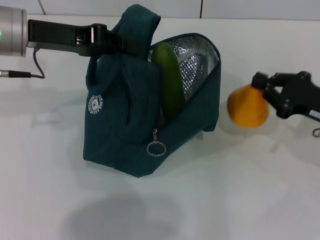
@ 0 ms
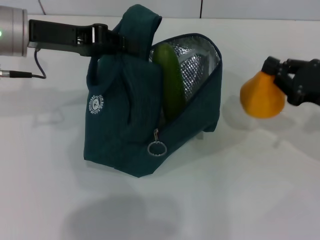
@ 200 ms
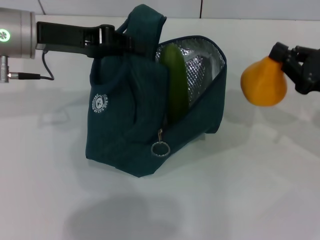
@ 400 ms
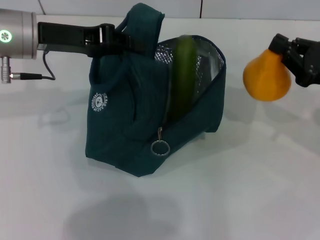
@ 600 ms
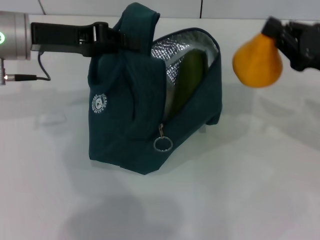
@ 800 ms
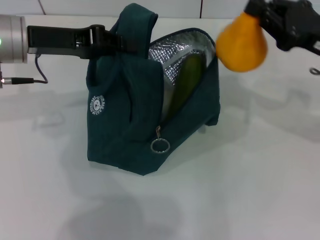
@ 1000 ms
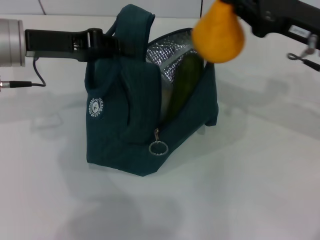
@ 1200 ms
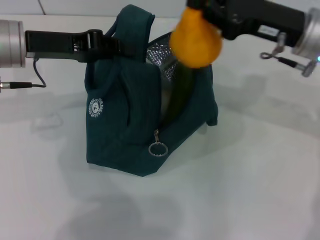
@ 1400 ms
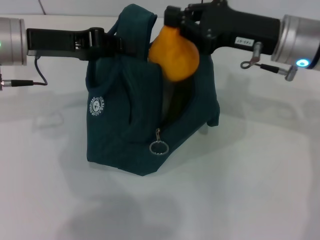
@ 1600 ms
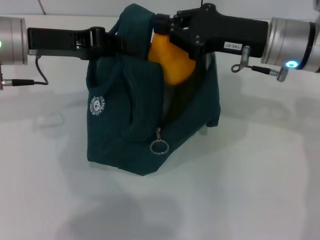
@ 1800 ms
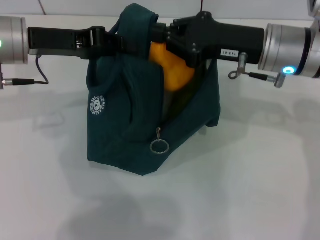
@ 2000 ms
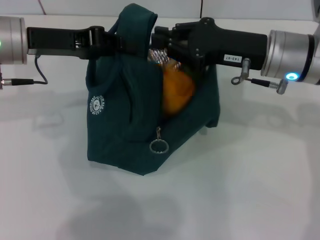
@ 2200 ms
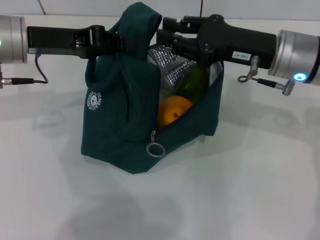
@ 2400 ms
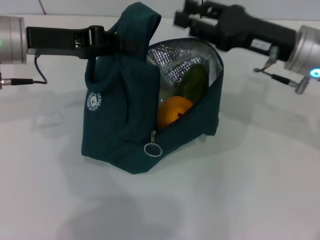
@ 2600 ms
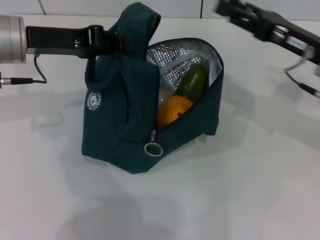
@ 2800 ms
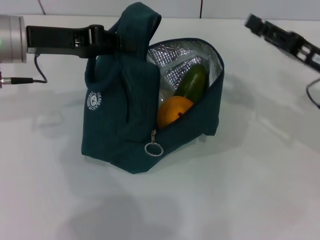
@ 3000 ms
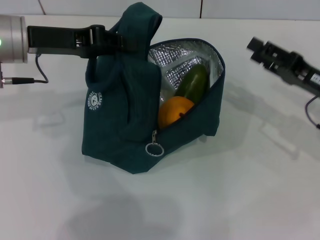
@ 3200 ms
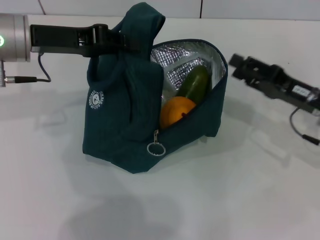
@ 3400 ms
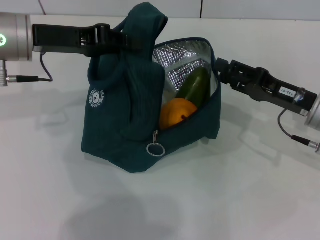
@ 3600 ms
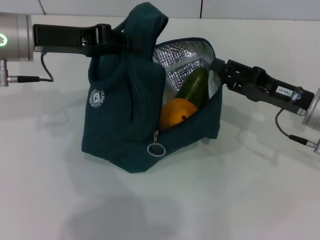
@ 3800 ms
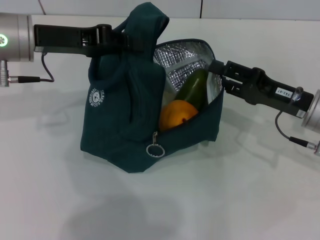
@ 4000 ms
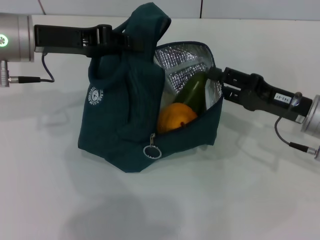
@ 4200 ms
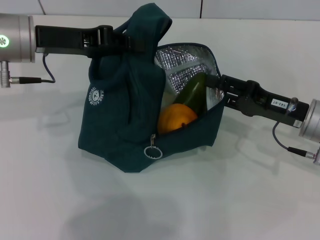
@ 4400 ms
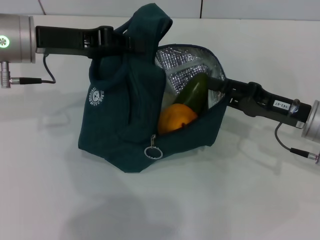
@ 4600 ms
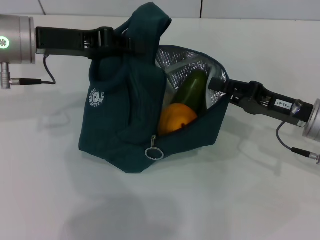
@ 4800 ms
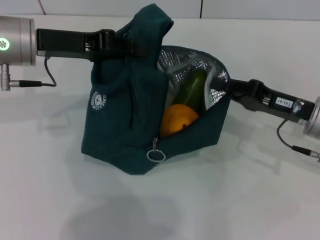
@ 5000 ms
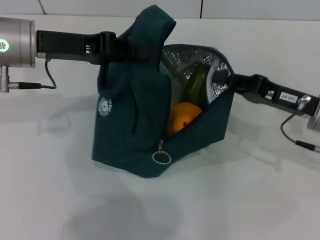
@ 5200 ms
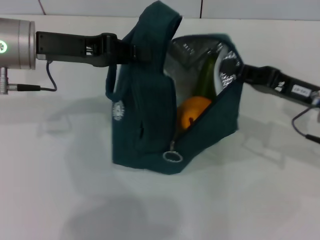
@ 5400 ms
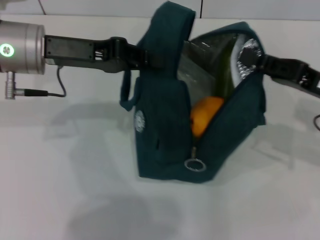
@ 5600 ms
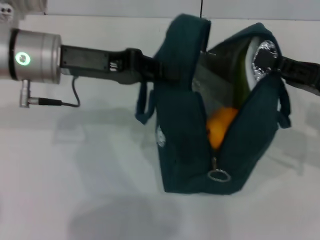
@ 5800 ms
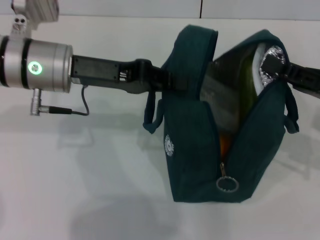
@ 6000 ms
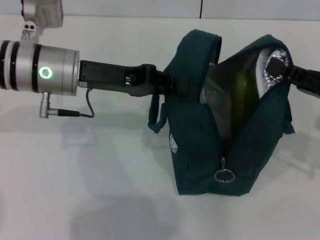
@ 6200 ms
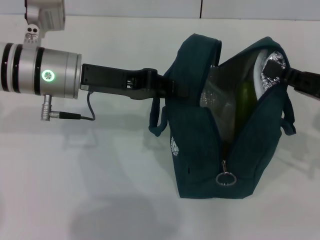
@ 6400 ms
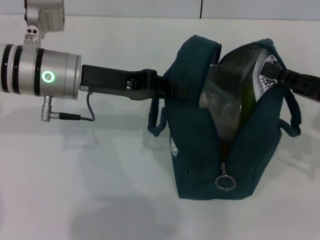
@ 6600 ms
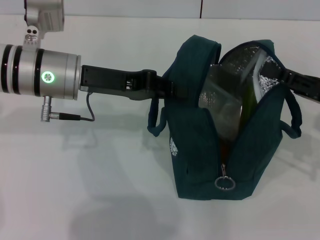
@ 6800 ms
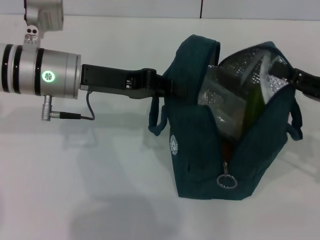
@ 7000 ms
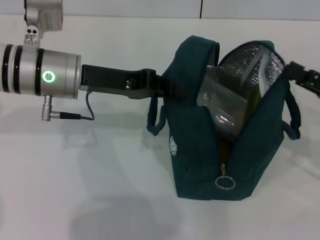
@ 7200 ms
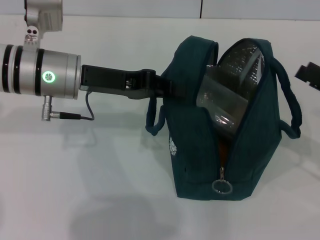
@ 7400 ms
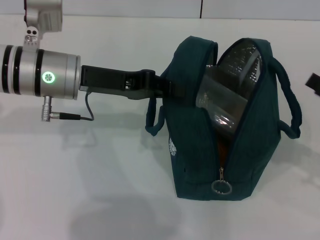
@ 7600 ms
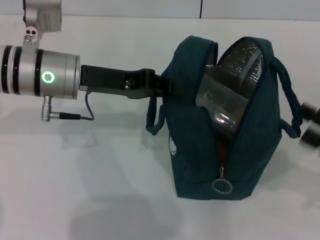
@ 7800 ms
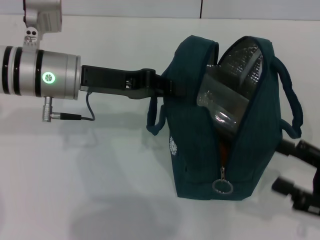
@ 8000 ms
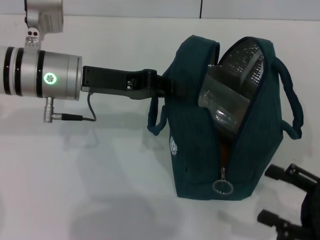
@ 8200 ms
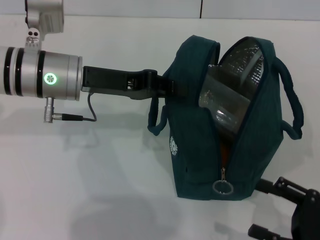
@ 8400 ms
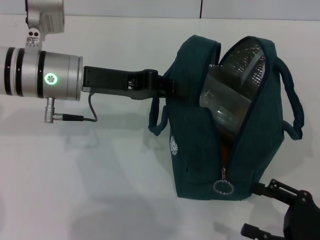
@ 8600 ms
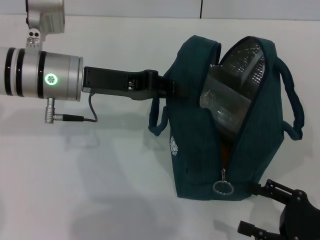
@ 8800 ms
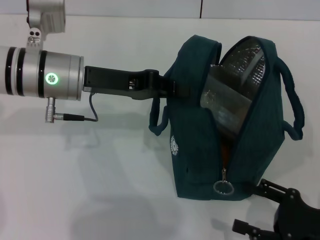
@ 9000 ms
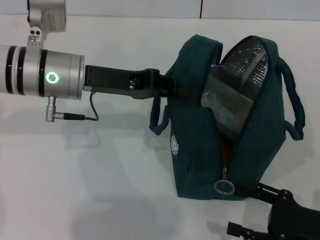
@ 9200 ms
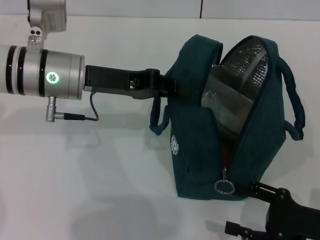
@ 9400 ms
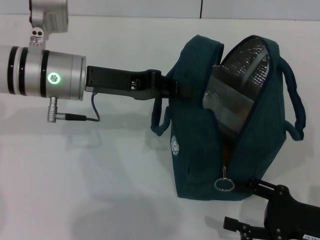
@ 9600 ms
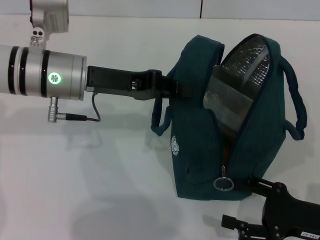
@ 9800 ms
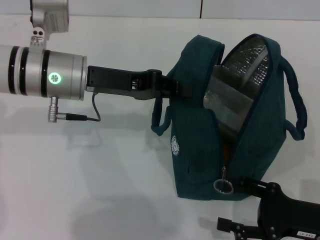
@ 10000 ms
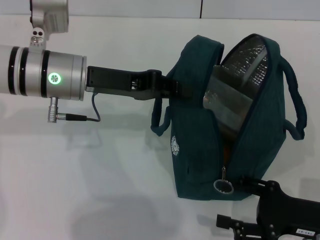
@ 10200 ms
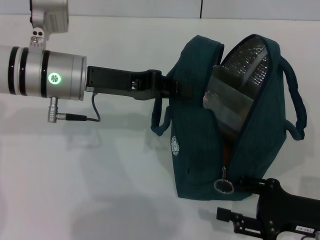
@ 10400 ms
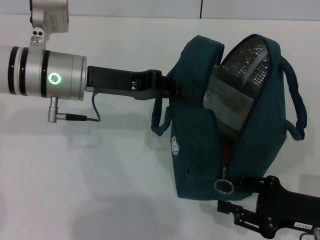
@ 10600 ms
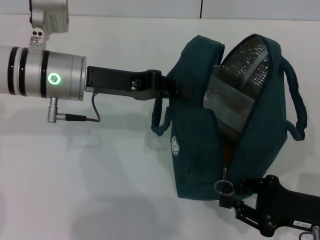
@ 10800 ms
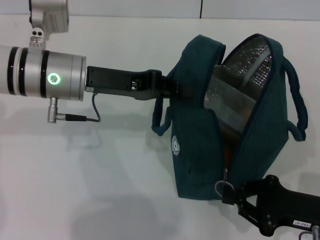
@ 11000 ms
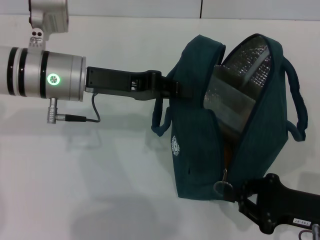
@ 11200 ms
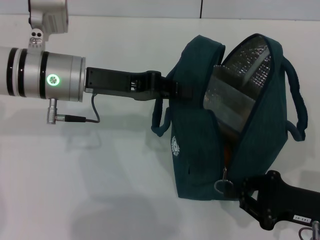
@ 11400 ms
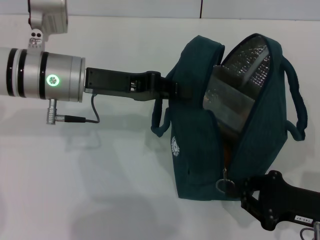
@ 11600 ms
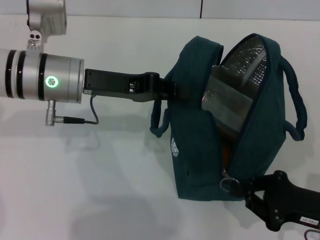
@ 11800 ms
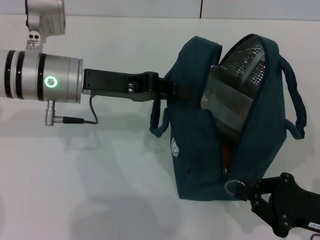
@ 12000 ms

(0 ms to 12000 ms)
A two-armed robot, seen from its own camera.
Step, 0 ms - 2200 ms: Secure the lunch bag with your left hand.
Step, 2400 ms - 7200 ms: Hold the lunch bag with your right hand.
0 ms - 1600 ms: The right gripper travels to the left, upward and forward by roughly 15 cm.
1600 ms - 3000 ms: The right gripper heads to the right and downward, covering about 10 cm, and opens up.
3000 ms - 4400 ms: The right gripper shifts by about 5 cm.
4400 ms - 6000 ms: The right gripper goes some 5 cm to the right, and closes up. The left gripper shifts by some 5 cm.
6000 ms - 7600 ms: The right gripper is displaced to the right and backward by approximately 5 cm, and opens.
7600 ms - 9000 ms: The right gripper moves downward, backward and to the left, roughly 10 cm.
9000 ms - 10400 ms: The grippers make only small movements.
10400 ms - 12000 ms: The right gripper closes.

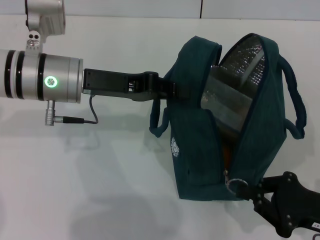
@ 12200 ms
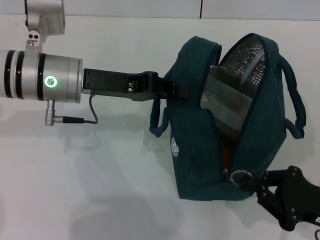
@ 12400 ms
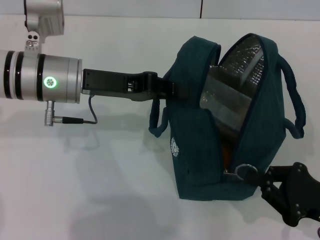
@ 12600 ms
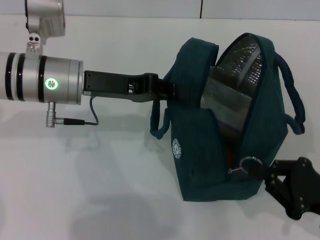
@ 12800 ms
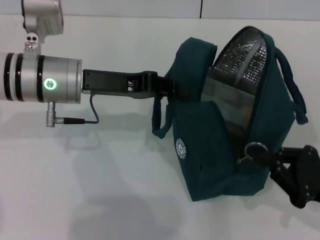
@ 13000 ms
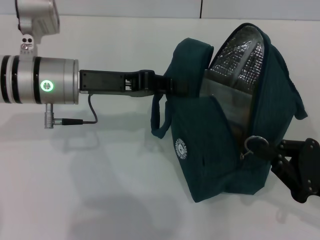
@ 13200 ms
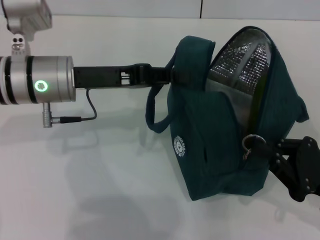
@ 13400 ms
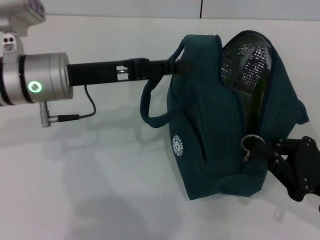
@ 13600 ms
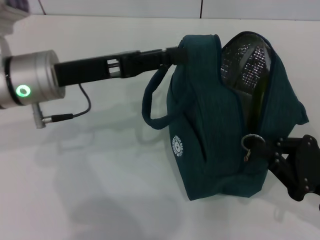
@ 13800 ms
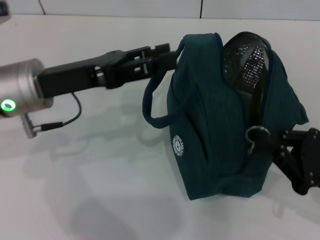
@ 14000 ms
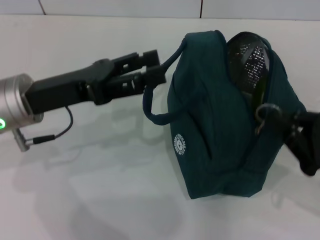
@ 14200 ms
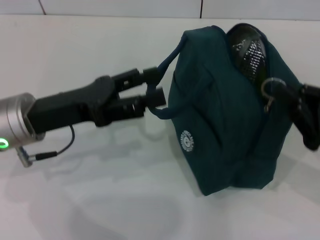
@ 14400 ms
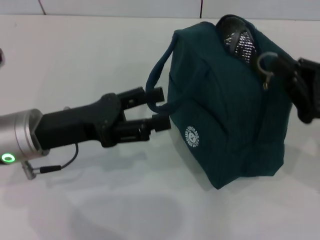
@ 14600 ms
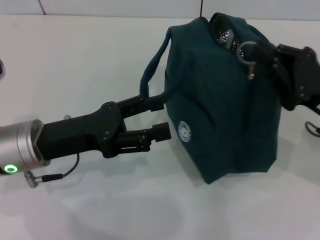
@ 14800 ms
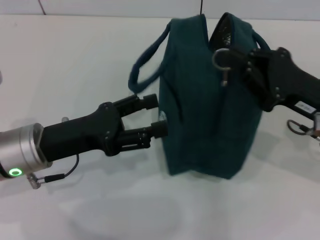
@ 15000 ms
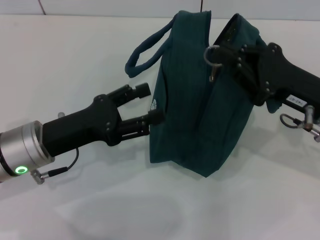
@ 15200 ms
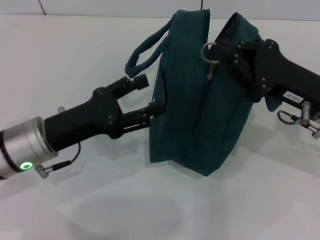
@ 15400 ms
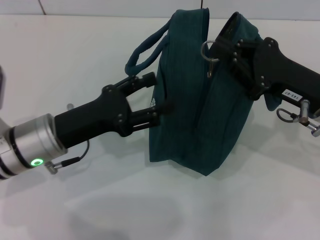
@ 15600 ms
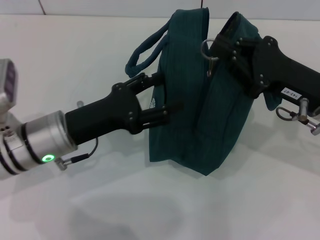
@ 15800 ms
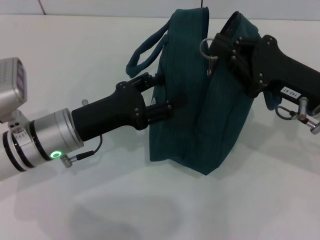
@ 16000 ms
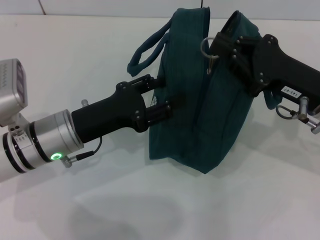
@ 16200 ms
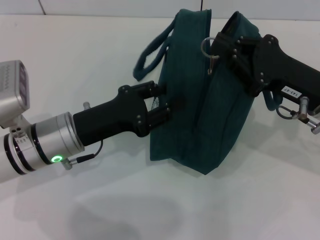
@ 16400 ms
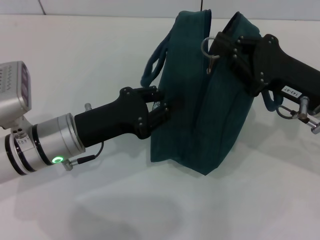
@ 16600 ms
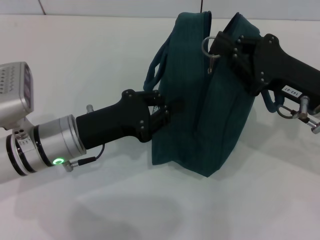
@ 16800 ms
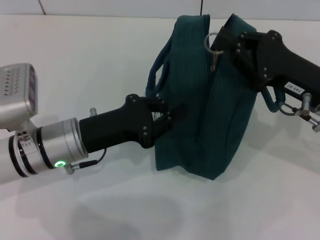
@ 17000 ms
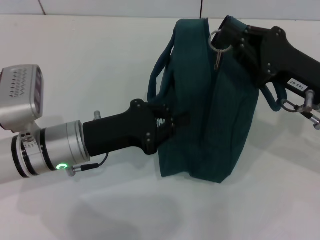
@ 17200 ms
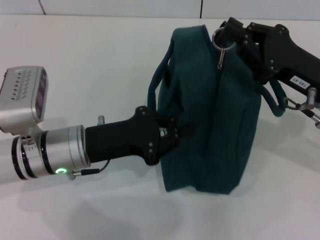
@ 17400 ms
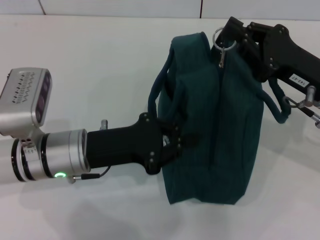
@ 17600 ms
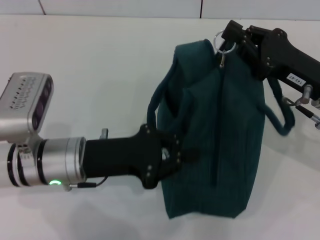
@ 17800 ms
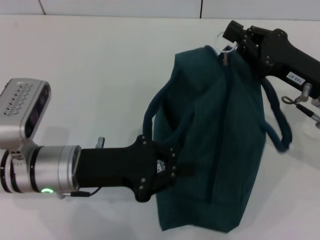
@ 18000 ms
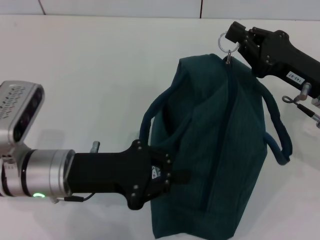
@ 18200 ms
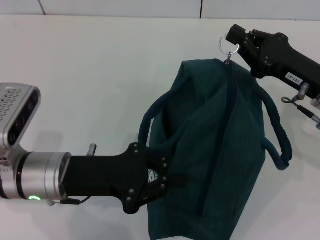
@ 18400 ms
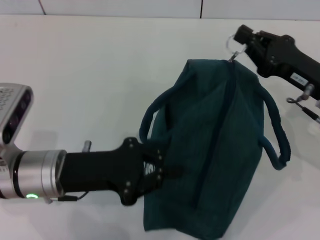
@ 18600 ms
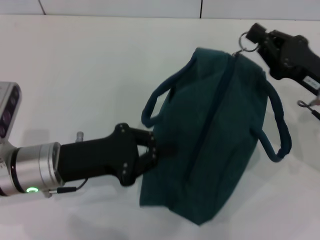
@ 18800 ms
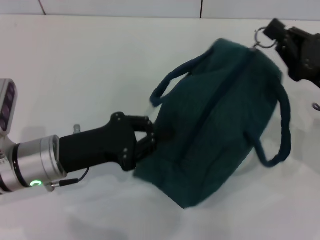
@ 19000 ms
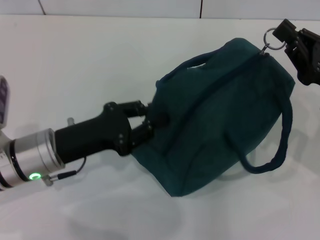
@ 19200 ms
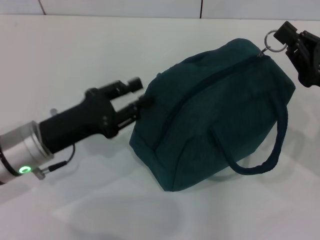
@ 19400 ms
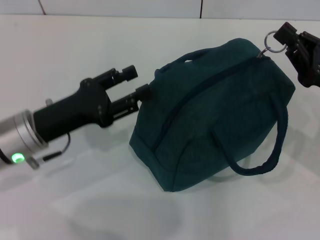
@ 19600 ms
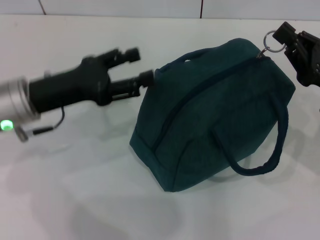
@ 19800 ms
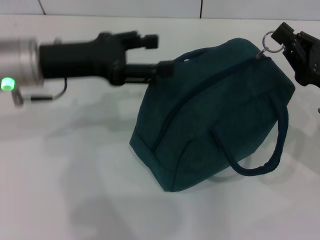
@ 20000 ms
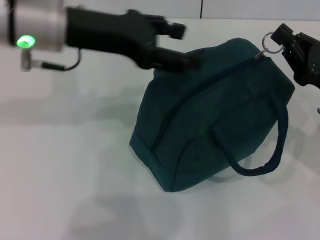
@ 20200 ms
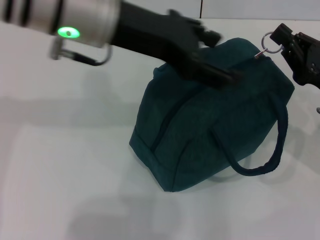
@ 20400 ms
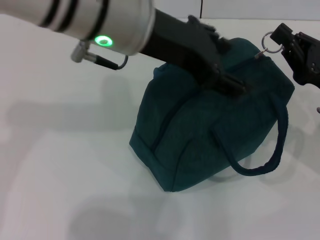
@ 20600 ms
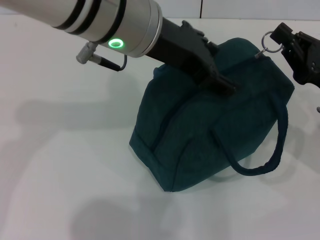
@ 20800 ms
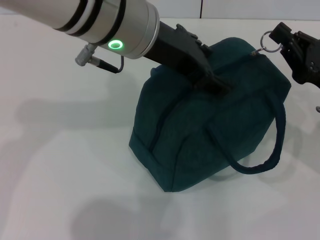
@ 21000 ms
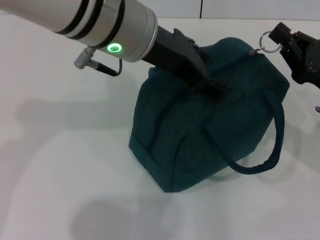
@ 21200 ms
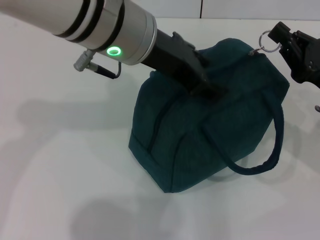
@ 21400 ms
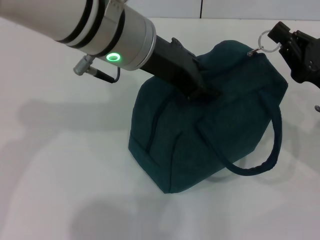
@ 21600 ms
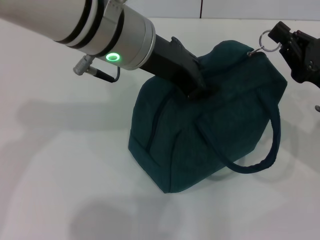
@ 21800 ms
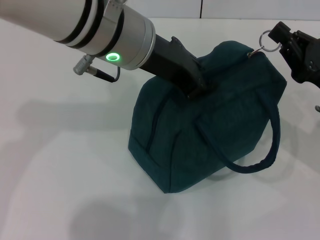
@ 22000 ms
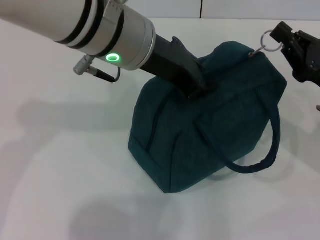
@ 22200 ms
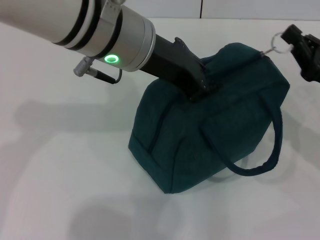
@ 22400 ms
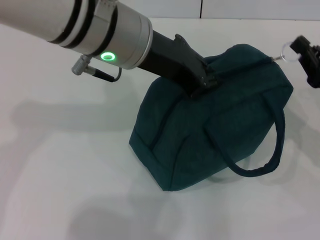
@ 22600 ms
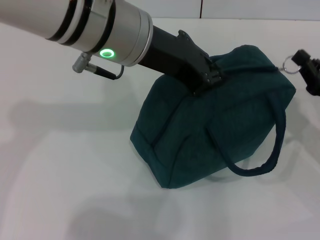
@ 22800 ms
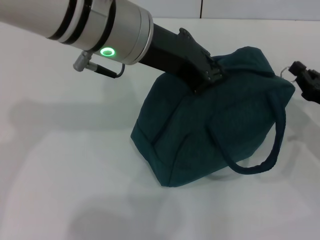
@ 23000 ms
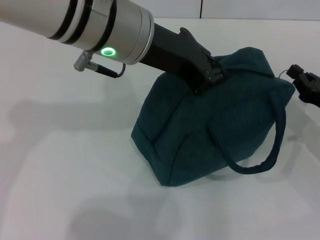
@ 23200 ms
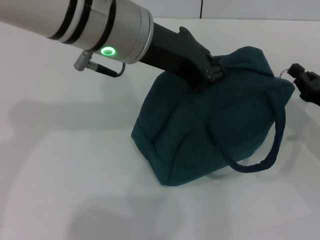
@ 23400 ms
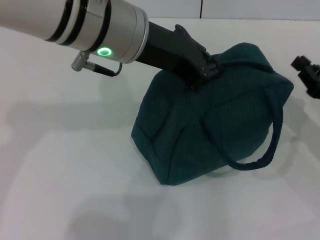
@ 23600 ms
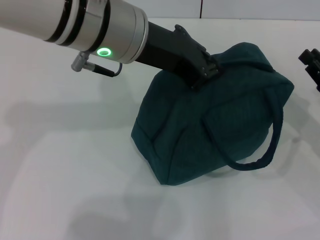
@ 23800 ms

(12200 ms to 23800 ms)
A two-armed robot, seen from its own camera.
Step, 14000 ms - 23400 ms: Zip up the lunch bag with your right hand.
13600 ms - 15000 ms: The right gripper heads forward and upward, covering approximately 10 cm. Meanwhile the left gripper is displaced backward and downward by about 10 cm, and opens.
15000 ms - 16600 ms: The left gripper closes up.
16600 ms - 18000 ms: The left gripper closes its fingers.
18000 ms - 19400 ms: The right gripper moves approximately 5 cm.
19400 ms - 21000 ms: The left gripper is displaced upward and to the right by approximately 25 cm, and opens up.
21000 ms - 22400 ms: The left gripper closes.
